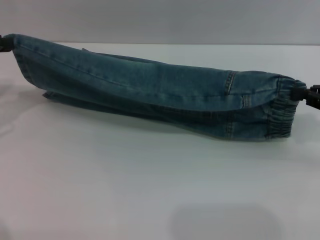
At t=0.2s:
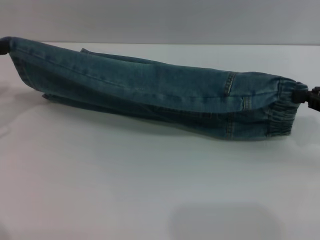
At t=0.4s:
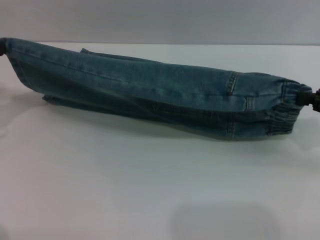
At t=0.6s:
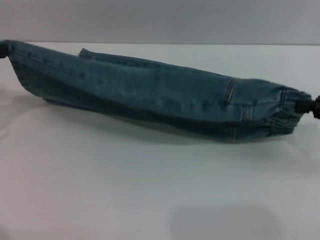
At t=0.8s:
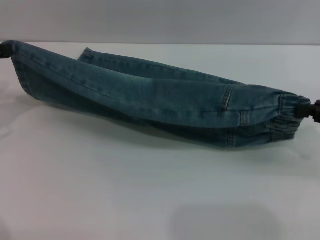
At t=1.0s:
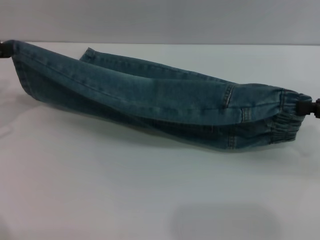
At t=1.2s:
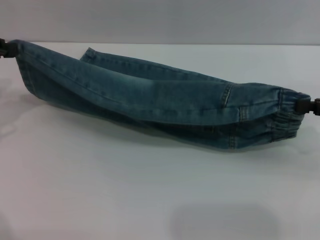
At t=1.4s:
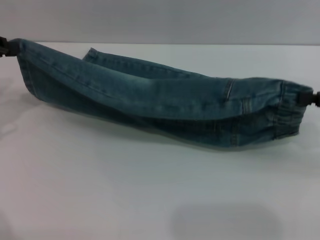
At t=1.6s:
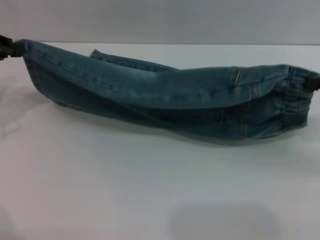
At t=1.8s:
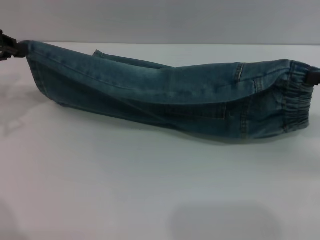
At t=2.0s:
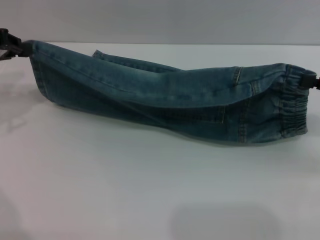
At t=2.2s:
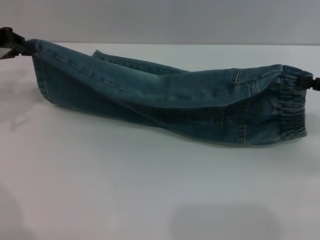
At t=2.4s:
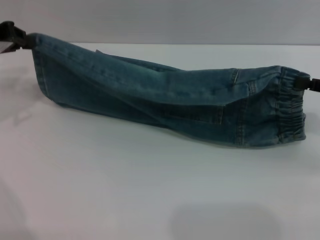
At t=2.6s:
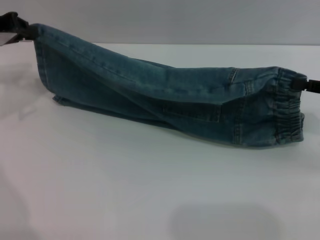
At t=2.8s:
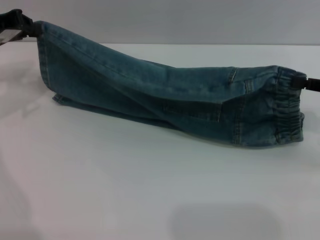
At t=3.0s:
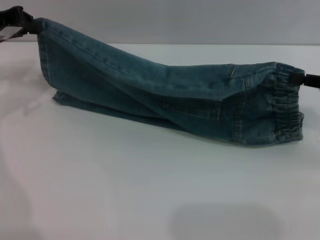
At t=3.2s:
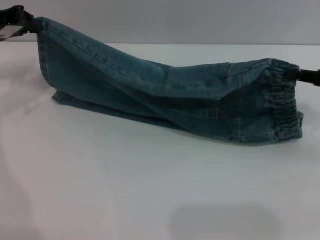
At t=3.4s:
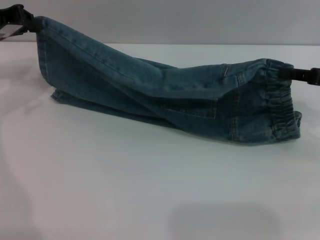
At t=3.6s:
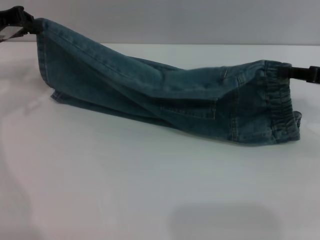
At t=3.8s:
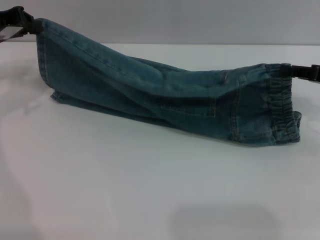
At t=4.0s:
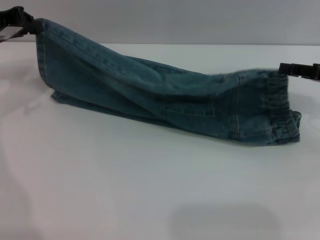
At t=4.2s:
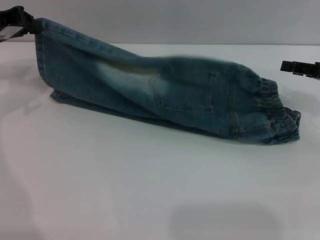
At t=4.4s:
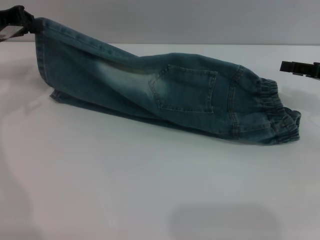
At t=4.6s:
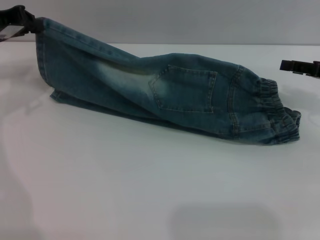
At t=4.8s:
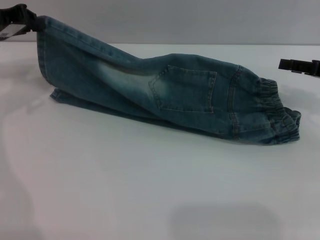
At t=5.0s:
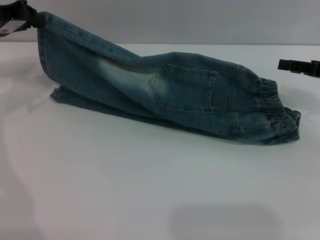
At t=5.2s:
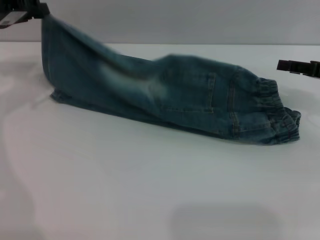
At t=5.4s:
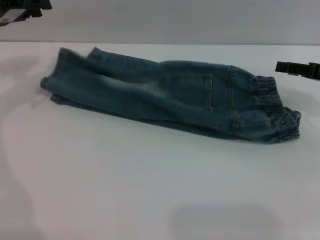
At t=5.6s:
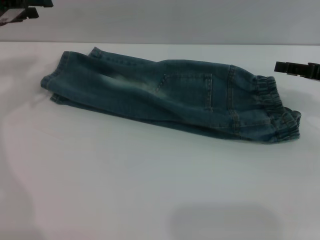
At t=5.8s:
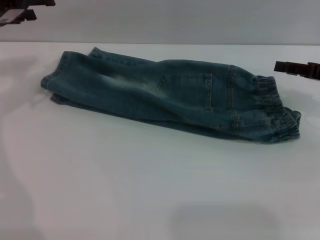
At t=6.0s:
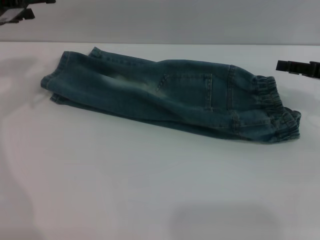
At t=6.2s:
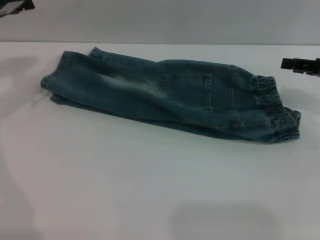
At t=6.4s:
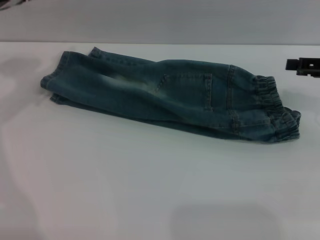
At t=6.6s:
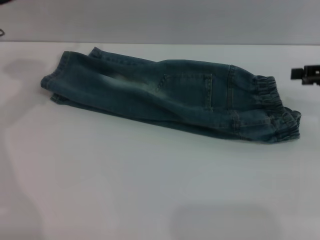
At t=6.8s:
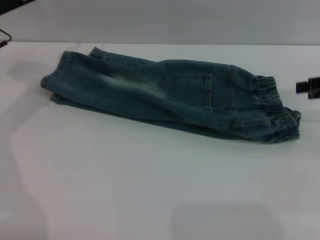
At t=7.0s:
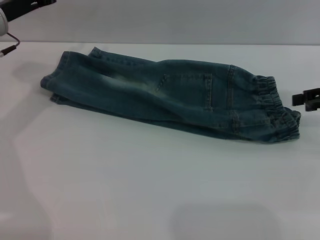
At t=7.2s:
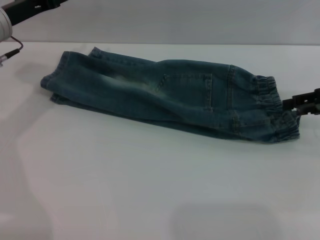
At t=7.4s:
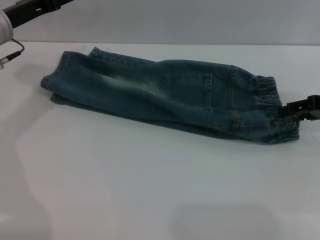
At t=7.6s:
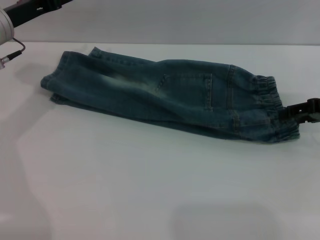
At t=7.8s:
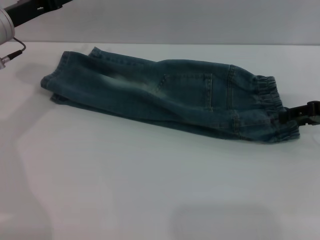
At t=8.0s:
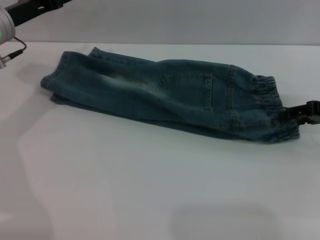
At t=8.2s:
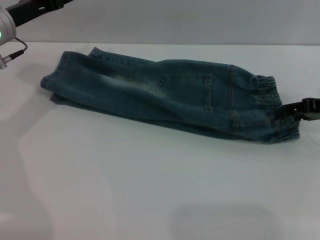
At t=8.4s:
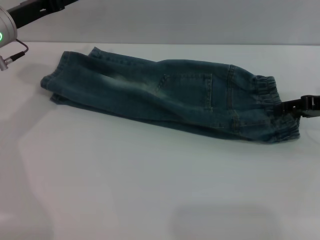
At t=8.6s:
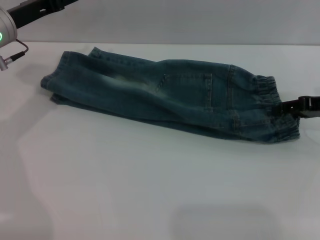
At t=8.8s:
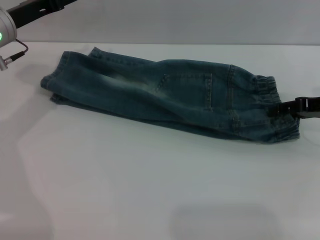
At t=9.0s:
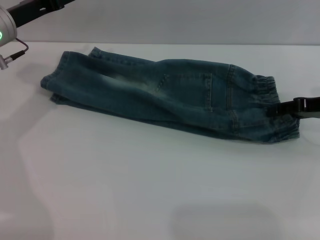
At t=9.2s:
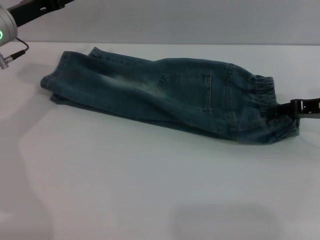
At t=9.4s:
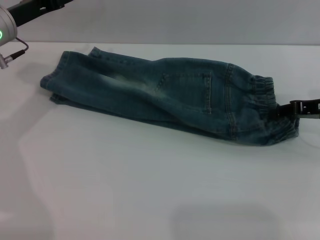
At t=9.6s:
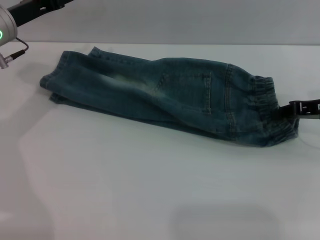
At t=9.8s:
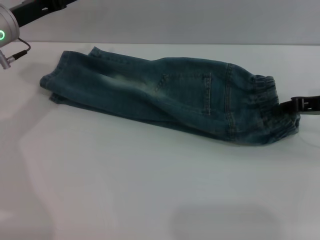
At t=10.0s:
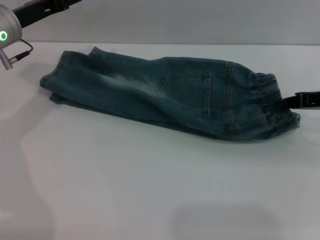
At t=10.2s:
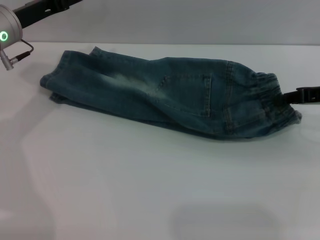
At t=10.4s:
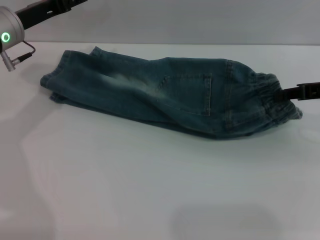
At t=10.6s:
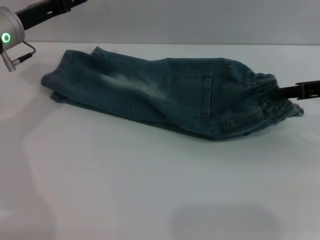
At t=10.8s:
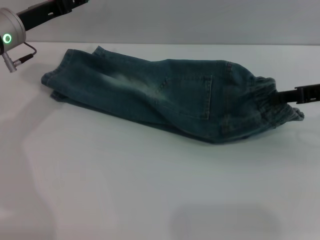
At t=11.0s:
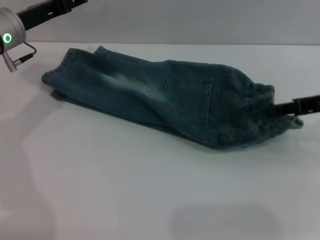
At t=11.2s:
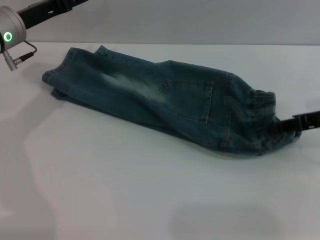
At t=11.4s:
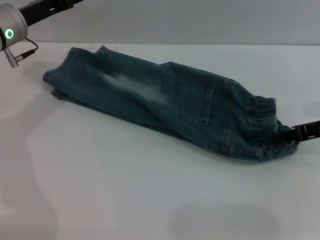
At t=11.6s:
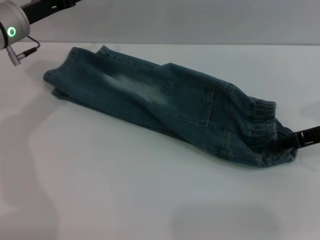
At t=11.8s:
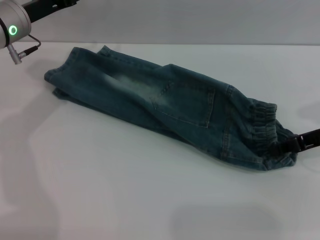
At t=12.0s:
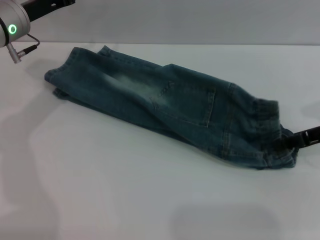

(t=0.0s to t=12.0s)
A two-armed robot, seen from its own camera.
Step, t=0.0s - t=5.8s: Fold the bottom of the pants upward with both grippers.
t=0.0s - t=1.6s: There are only small adjustments of the grippers.
t=1.6s - t=3.0s: The left gripper heads forward, covering approximately 5 cm.
t=3.0s - t=4.4s: The right gripper opens up.
t=4.4s - t=6.0s: The left gripper opens its fingers.
t=6.0s - t=7.6s: The left gripper shifts by some 5 cm.
t=7.6s - t=9.0s: The grippers move only a little.
t=9.0s - t=10.4s: The right gripper closes up.
t=10.4s - t=12.0s: The grippers move only a little.

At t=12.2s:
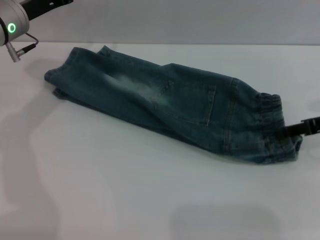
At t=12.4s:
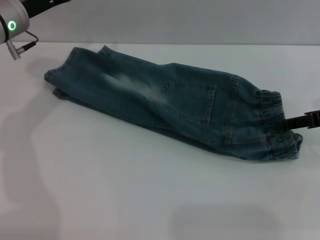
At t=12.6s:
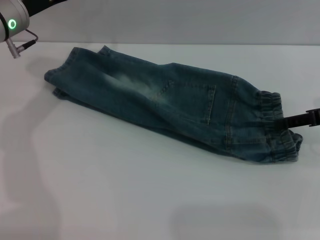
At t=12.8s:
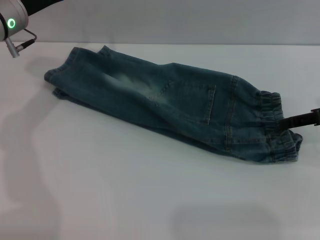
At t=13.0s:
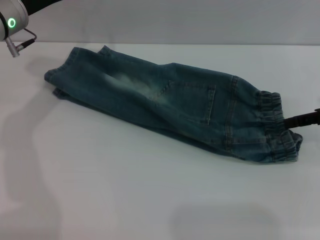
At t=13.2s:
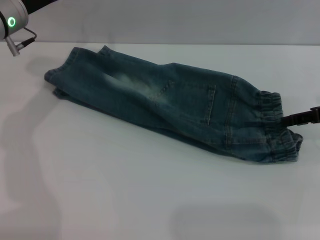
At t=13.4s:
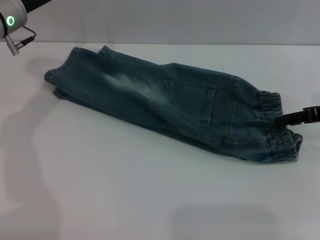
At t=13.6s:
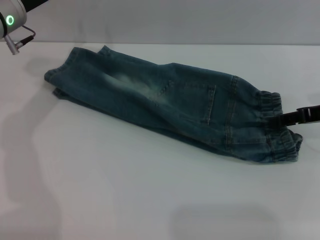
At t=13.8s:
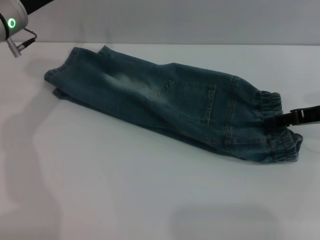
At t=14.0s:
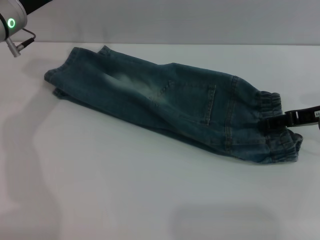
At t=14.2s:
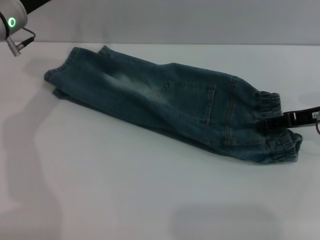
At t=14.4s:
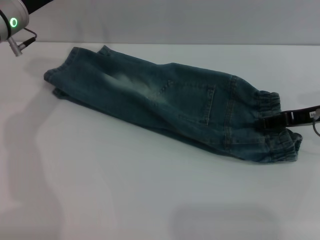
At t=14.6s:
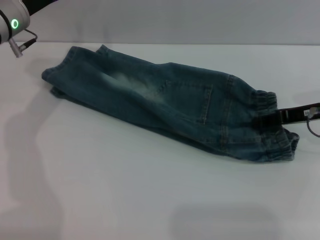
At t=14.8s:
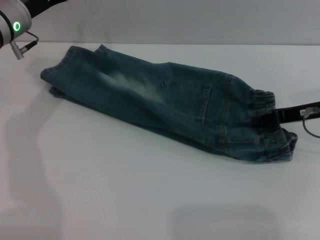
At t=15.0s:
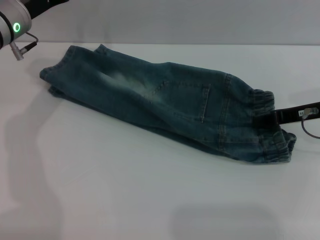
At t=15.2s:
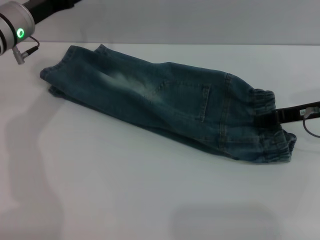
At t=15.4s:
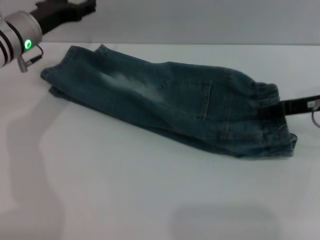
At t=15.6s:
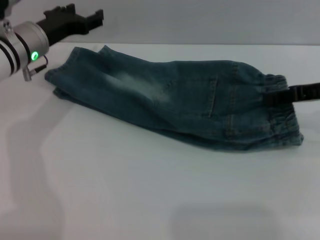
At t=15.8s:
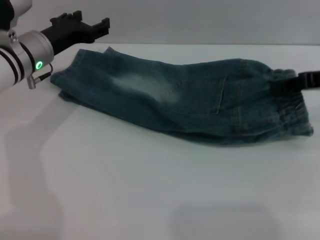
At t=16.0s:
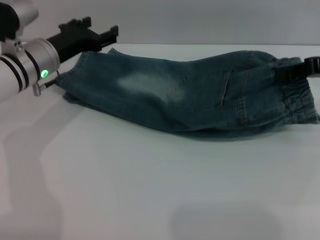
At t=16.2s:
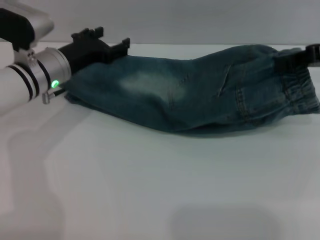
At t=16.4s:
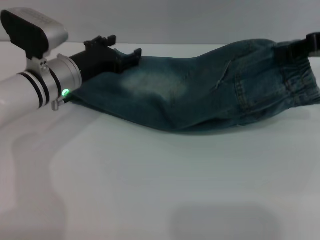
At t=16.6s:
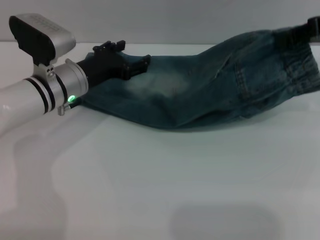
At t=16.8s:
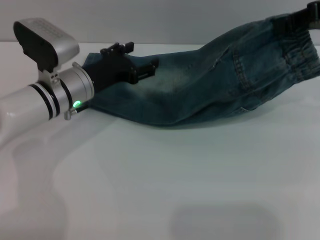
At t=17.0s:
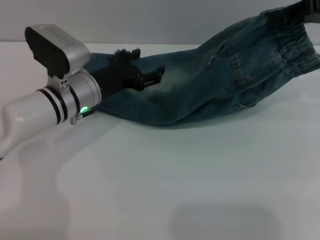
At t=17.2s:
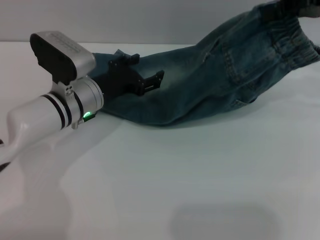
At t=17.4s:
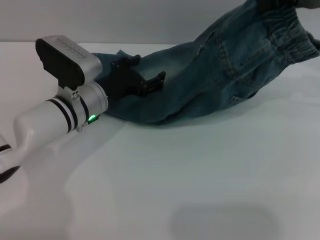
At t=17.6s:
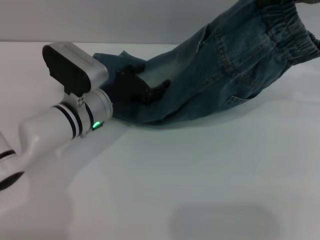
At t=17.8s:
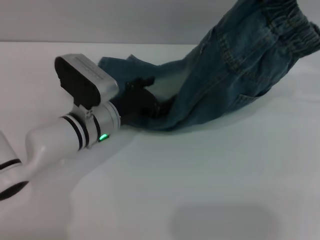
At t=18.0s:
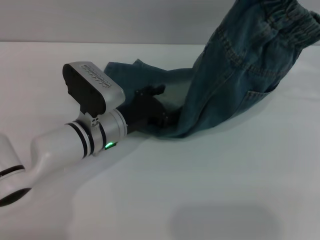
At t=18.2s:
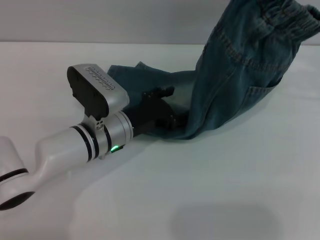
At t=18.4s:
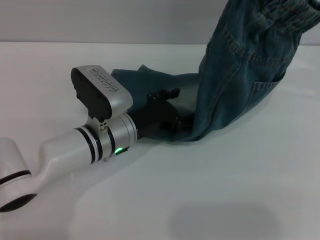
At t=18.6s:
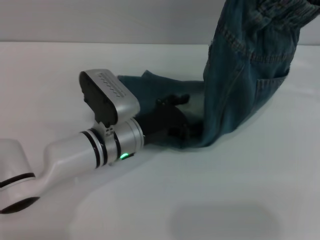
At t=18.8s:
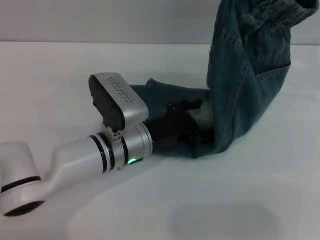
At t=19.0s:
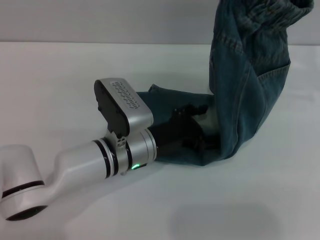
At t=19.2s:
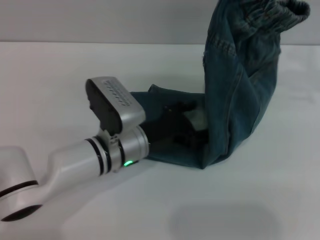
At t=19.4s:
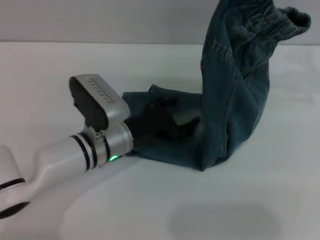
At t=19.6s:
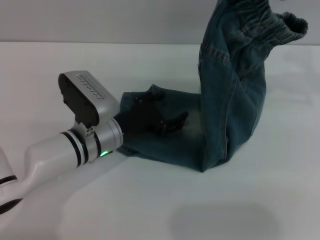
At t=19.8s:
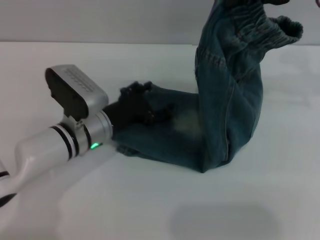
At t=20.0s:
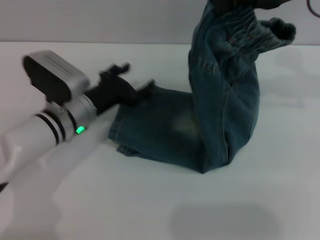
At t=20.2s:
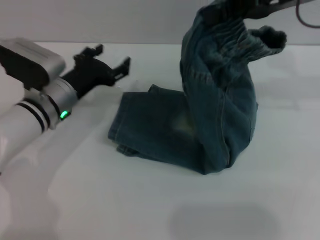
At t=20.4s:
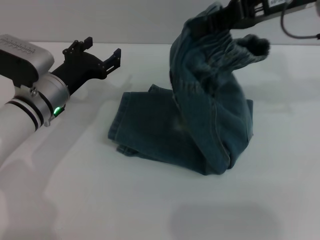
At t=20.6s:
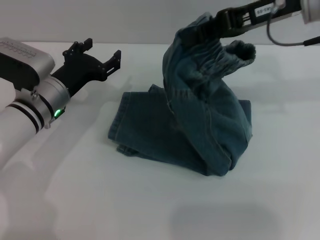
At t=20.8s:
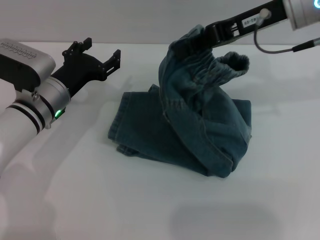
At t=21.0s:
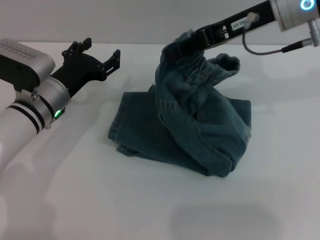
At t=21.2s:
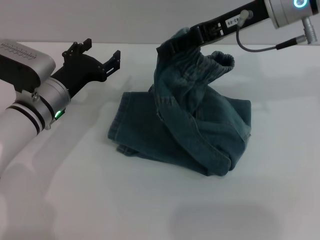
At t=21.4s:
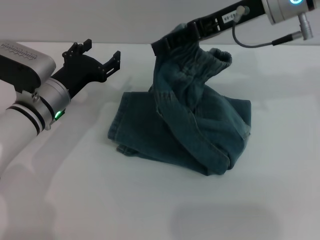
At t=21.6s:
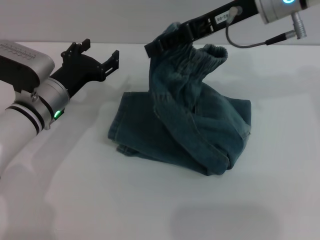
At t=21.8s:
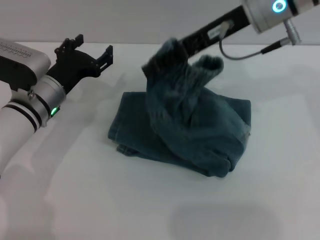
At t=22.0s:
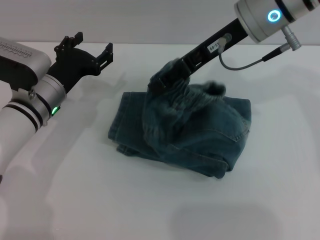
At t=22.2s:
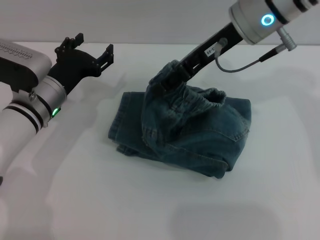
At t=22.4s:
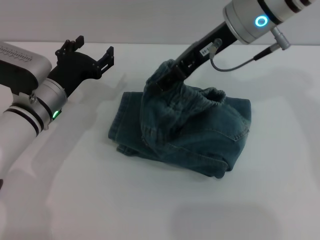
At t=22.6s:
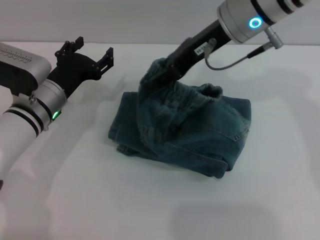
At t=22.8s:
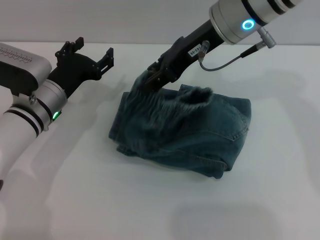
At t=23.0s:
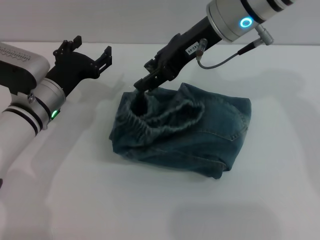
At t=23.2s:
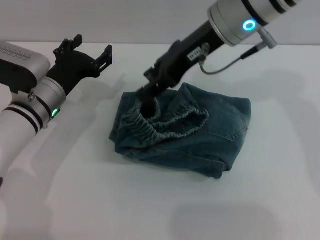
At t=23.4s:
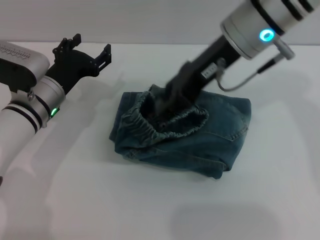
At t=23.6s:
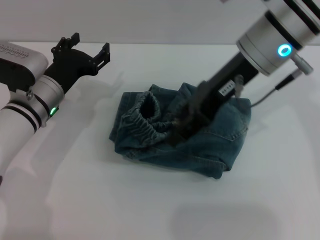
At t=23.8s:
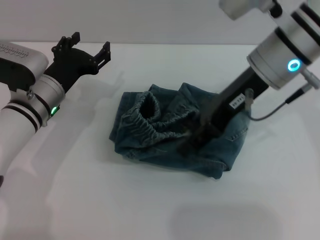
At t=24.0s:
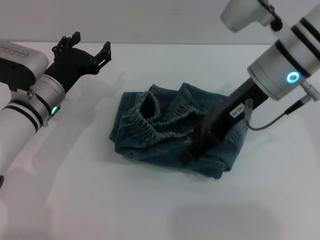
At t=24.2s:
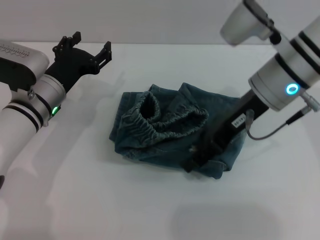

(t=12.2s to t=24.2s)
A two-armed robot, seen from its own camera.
t=12.2s - t=13.8s: The right gripper opens its fingers.
t=13.8s - t=15.2s: The right gripper closes up.
t=15.2s - t=16.6s: The left gripper shifts approximately 10 cm downward and to the right. Meanwhile the right gripper shifts approximately 15 cm upward.
t=16.6s - t=18.2s: The left gripper moves to the right and backward, approximately 10 cm, while the right gripper moves upward, approximately 5 cm.
t=19.8s - t=21.2s: Both grippers move to the left, some 5 cm.
t=21.2s - t=22.6s: The right gripper goes about 5 cm to the left, and opens.
t=22.6s - t=24.2s: The right gripper moves downward and backward, roughly 5 cm.
